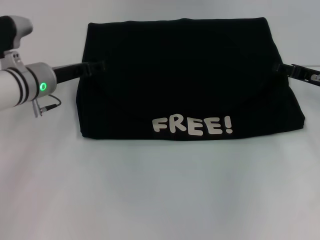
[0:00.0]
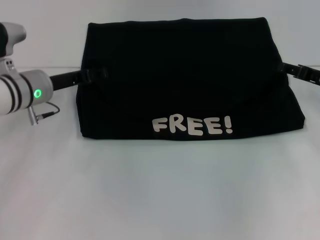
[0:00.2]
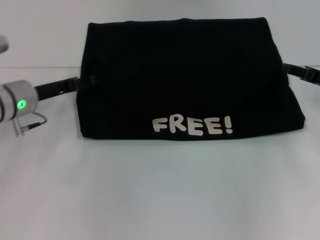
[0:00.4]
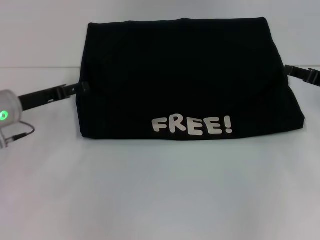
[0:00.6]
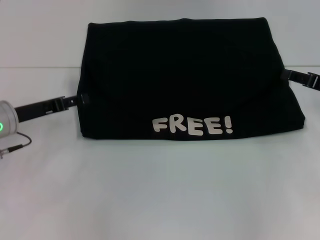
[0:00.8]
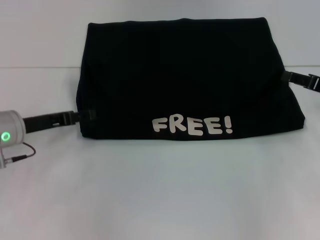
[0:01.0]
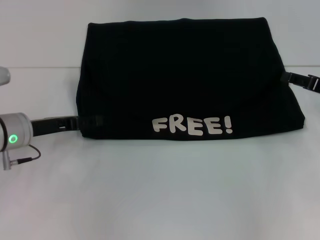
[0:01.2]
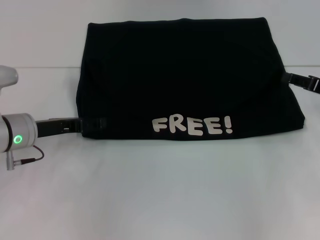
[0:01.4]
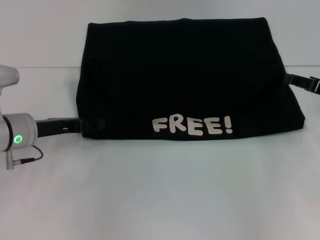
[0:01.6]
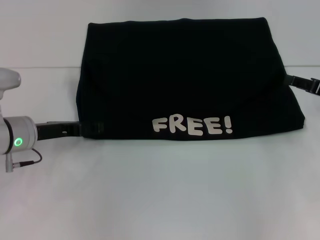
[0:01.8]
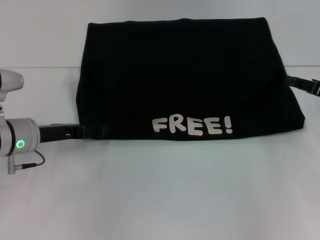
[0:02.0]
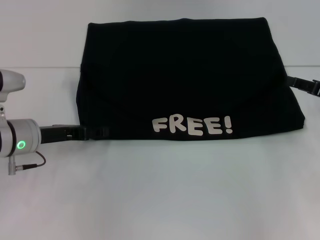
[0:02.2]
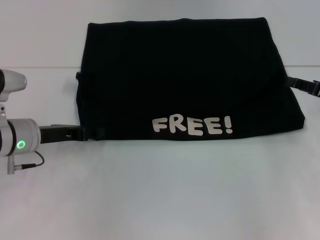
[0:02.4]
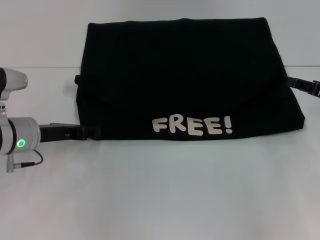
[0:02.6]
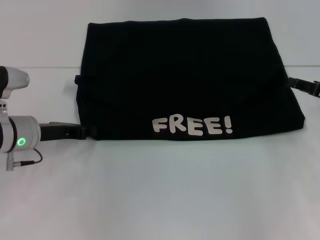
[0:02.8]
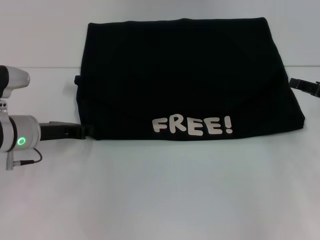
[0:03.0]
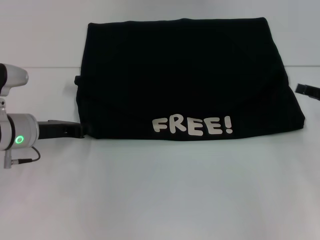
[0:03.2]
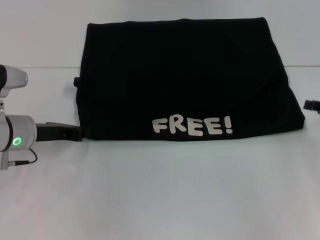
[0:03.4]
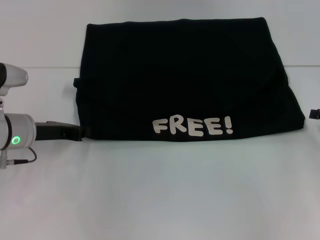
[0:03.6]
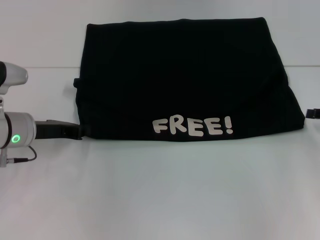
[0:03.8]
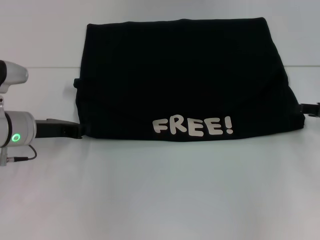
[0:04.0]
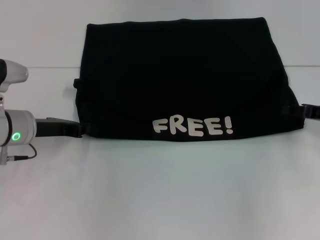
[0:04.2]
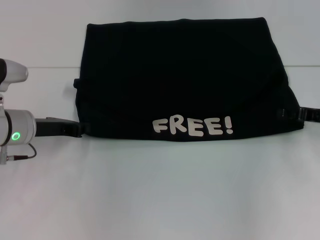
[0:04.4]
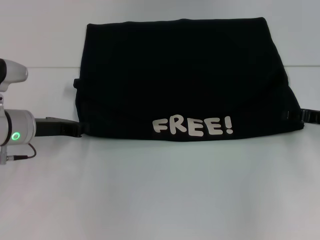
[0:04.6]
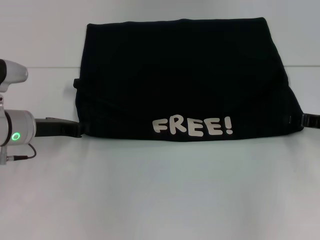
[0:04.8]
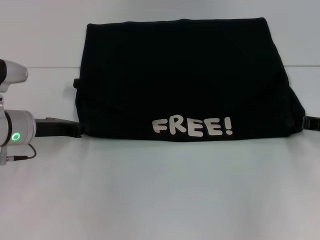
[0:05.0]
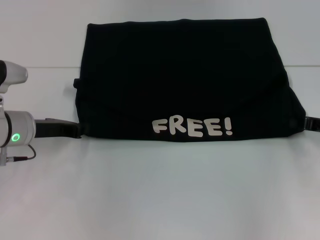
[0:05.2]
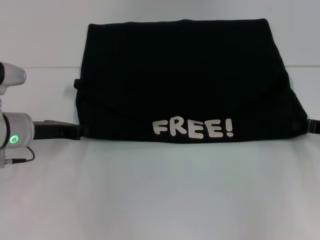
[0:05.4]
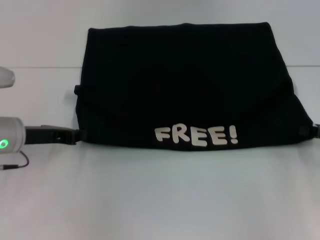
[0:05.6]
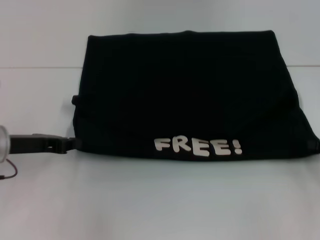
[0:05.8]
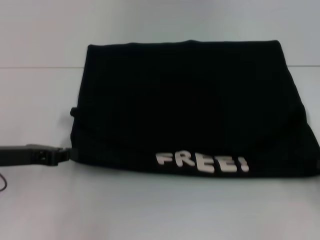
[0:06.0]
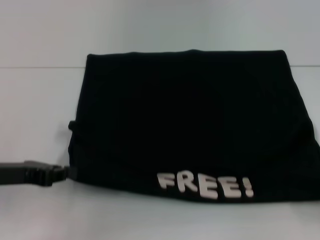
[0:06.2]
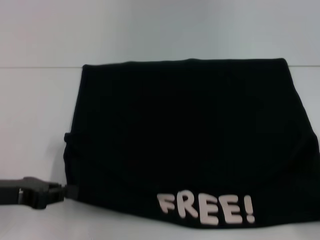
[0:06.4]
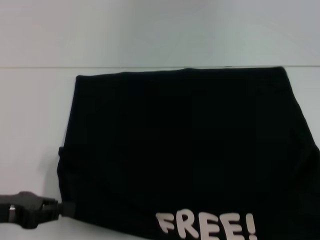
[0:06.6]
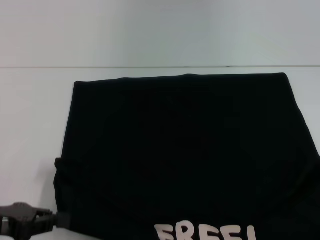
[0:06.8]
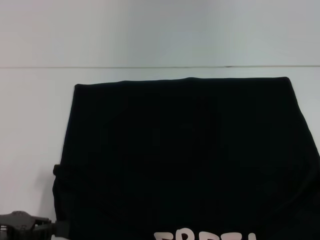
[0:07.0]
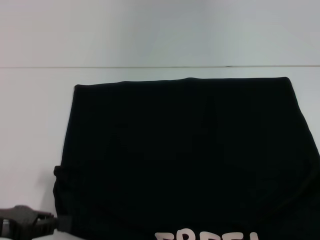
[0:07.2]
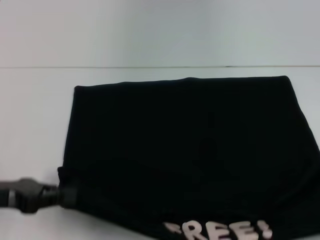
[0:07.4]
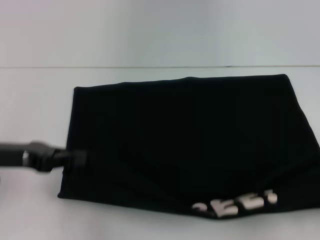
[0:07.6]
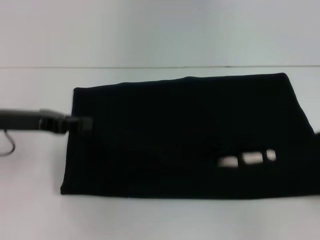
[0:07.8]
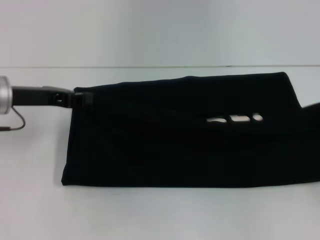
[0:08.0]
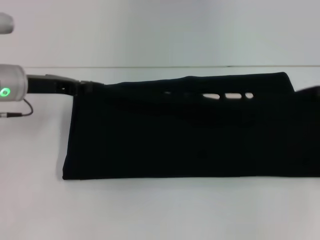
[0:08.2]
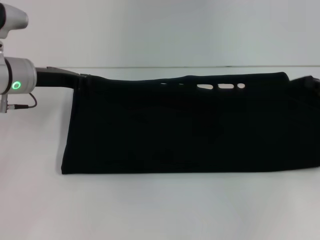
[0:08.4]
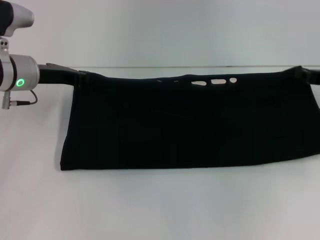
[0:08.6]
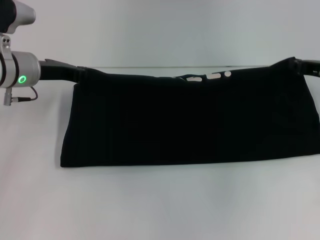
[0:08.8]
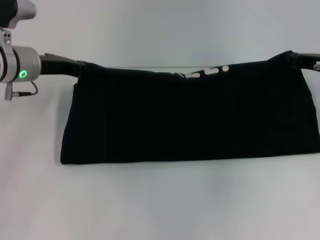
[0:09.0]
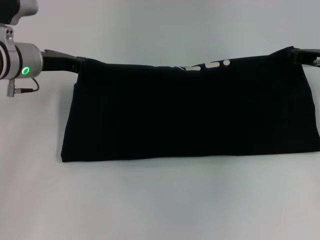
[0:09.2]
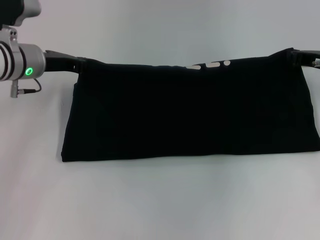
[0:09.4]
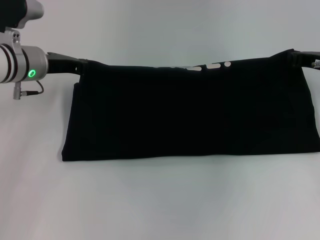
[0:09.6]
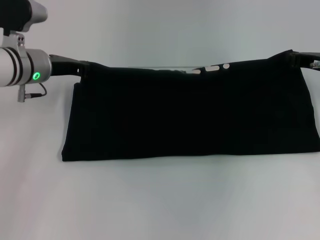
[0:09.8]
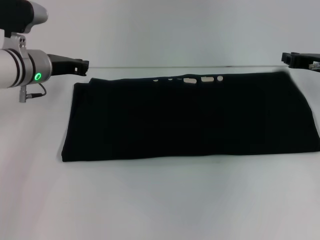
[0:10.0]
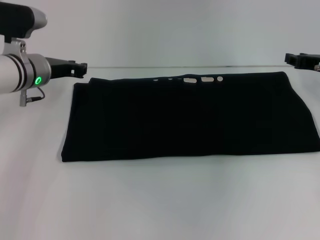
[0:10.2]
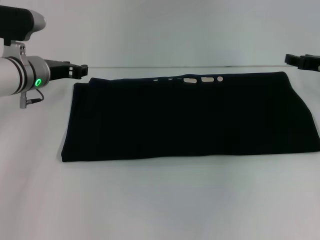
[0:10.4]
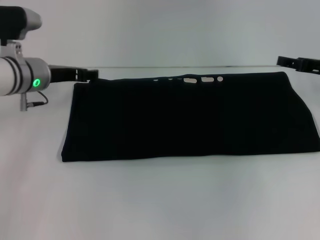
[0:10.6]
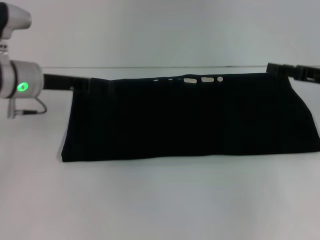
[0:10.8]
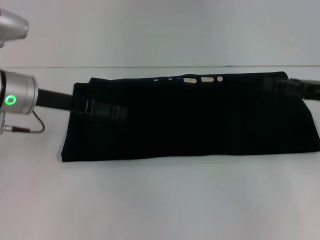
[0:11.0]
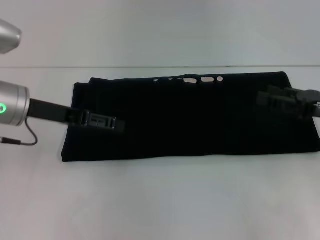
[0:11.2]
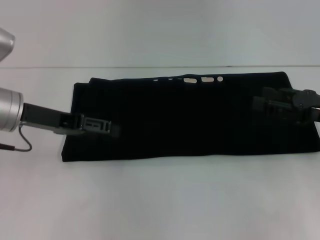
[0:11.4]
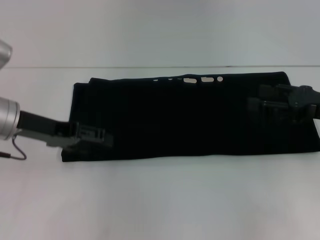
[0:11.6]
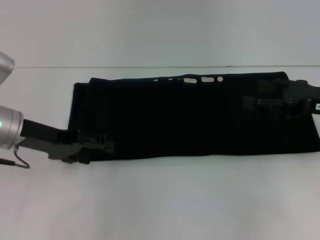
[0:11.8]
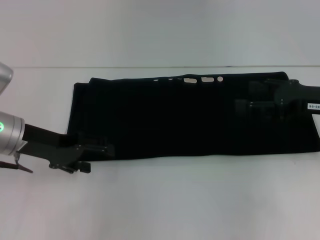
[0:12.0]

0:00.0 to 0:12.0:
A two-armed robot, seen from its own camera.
Step, 0:00.4 to 0:06.6: Pull the clothes with your left hand.
Step, 0:00.4 to 0:06.6: Pull the clothes with your right hand.
Step, 0:06.8 to 0:10.2: Fold the clothes with your right hand.
0:00.0 to 0:01.6: The right gripper changes place by about 5 cm. Meanwhile the left gripper goes some 5 cm backward.
0:01.6 to 0:03.0: The left gripper closes.
0:03.0 to 0:04.4: The grippers make only small movements.
0:04.4 to 0:06.0: The right gripper goes some 15 cm backward and to the right, and closes up. Meanwhile the left gripper moves backward, some 5 cm.
0:06.0 to 0:07.6: The left gripper goes backward and returns, roughly 10 cm each way. The right gripper goes about 5 cm backward.
0:07.6 to 0:09.0: The right gripper goes some 25 cm forward and to the left. The left gripper moves forward, approximately 15 cm.
0:09.0 to 0:10.4: The right gripper opens.
0:10.4 to 0:12.0: The two grippers go some 10 cm backward. The left gripper opens. Meanwhile the right gripper opens its fingers.

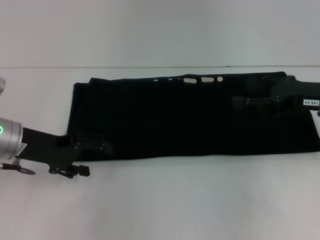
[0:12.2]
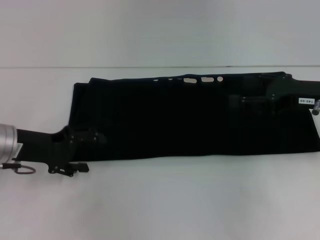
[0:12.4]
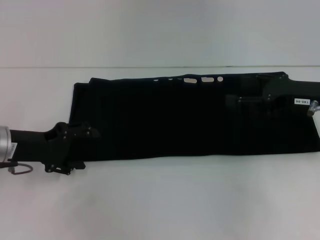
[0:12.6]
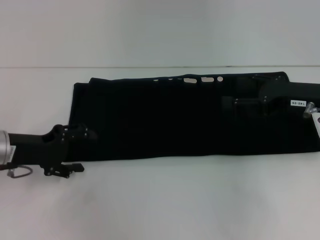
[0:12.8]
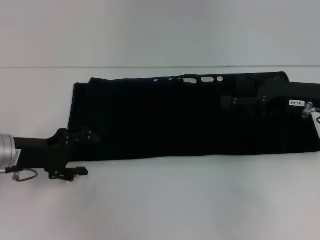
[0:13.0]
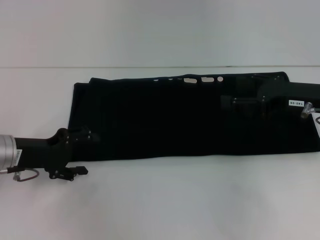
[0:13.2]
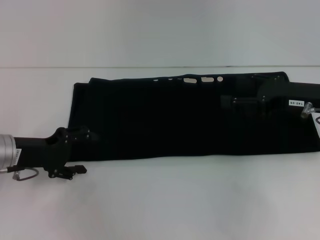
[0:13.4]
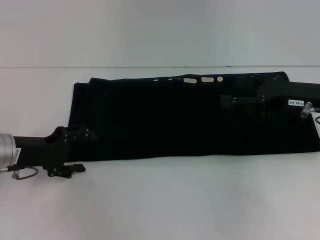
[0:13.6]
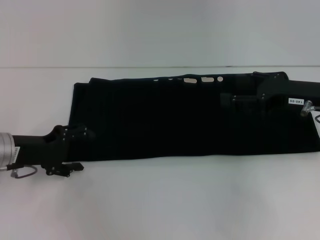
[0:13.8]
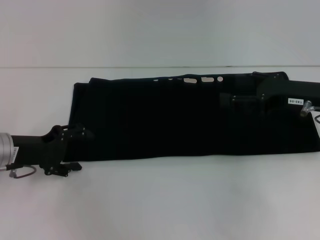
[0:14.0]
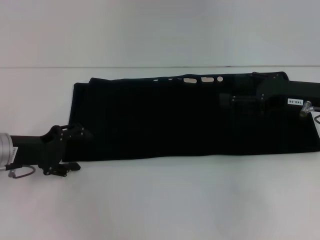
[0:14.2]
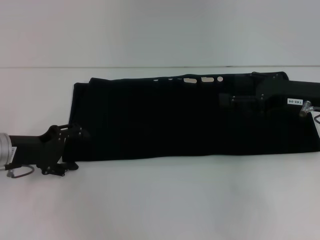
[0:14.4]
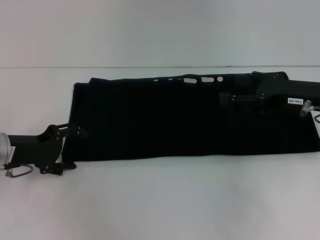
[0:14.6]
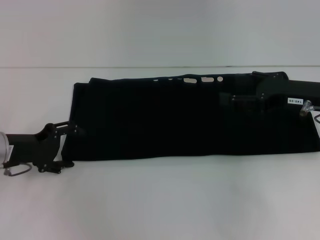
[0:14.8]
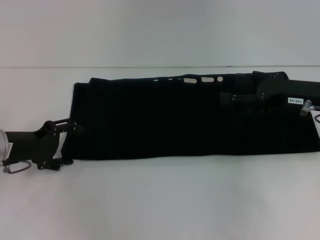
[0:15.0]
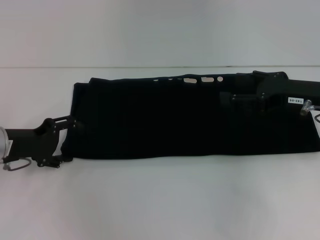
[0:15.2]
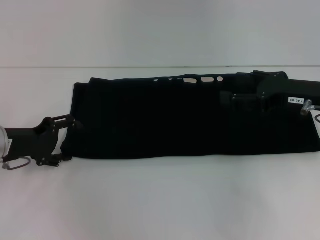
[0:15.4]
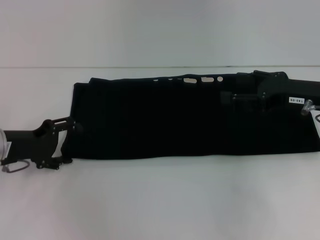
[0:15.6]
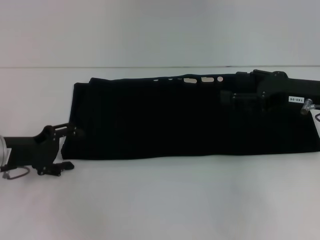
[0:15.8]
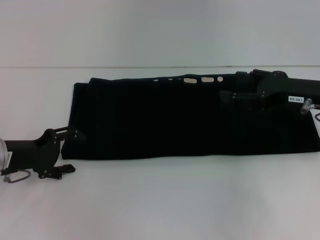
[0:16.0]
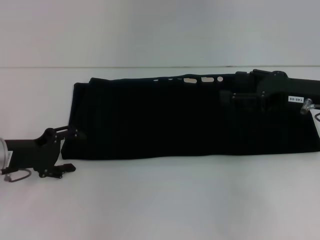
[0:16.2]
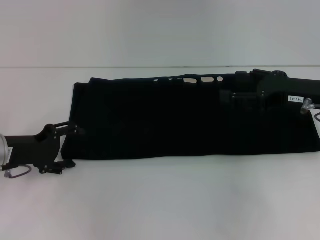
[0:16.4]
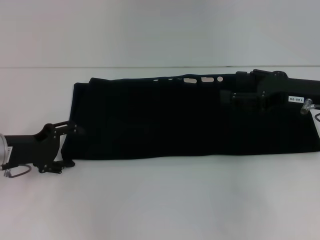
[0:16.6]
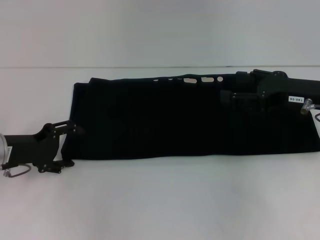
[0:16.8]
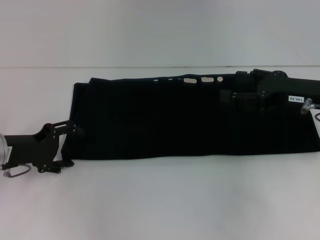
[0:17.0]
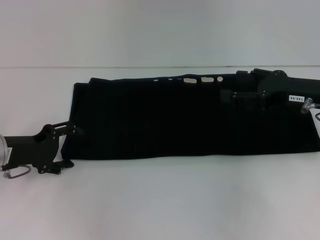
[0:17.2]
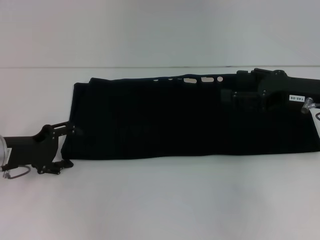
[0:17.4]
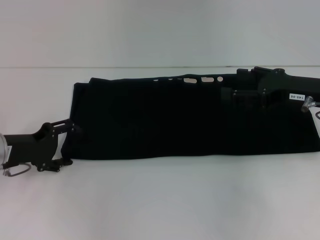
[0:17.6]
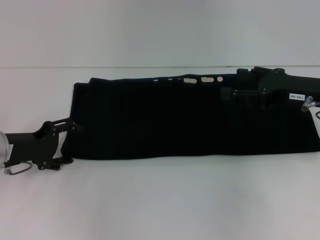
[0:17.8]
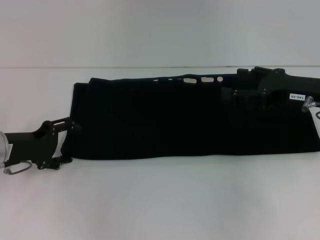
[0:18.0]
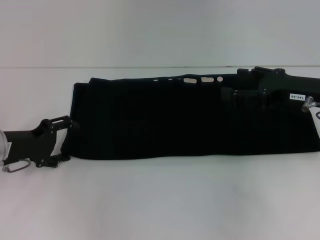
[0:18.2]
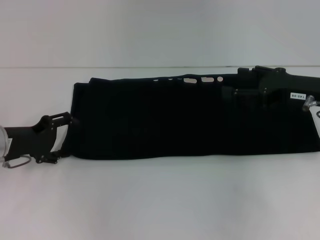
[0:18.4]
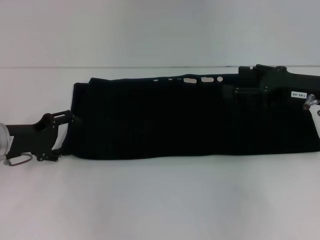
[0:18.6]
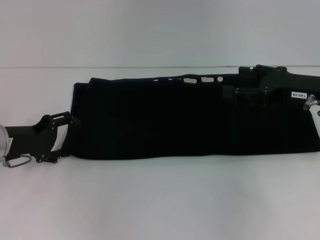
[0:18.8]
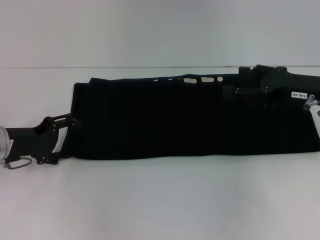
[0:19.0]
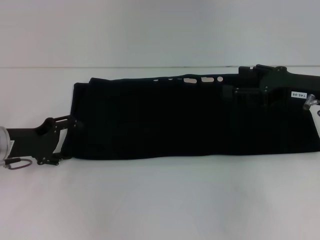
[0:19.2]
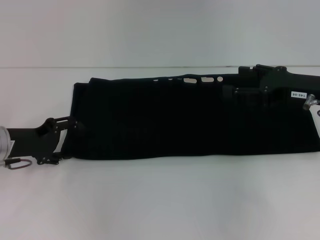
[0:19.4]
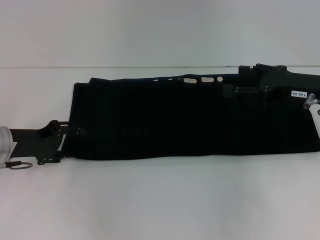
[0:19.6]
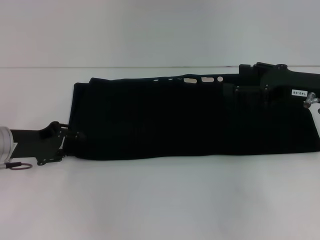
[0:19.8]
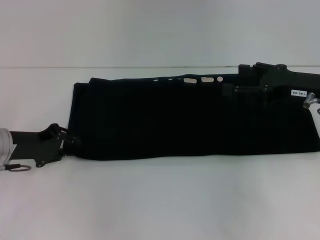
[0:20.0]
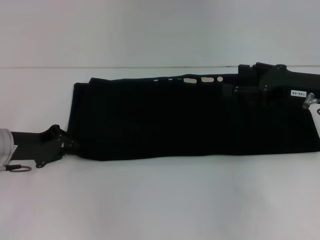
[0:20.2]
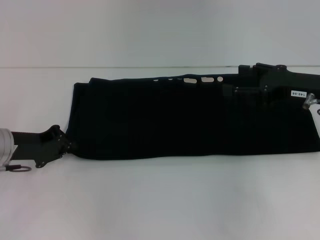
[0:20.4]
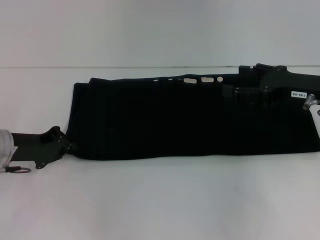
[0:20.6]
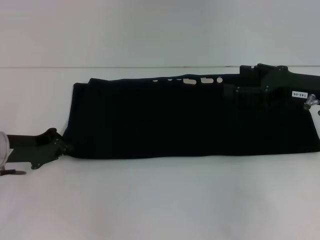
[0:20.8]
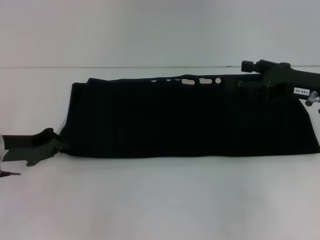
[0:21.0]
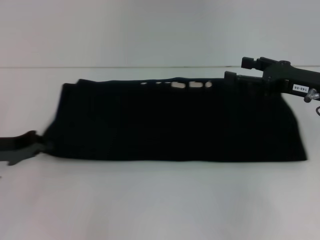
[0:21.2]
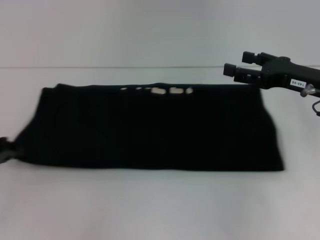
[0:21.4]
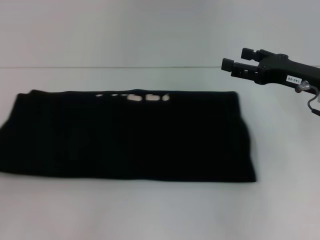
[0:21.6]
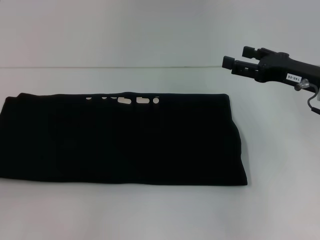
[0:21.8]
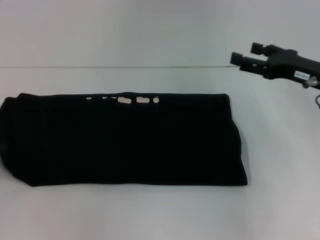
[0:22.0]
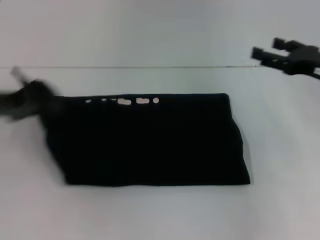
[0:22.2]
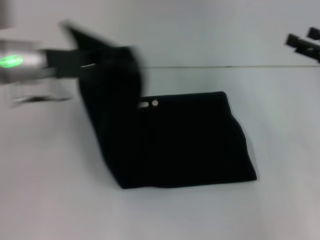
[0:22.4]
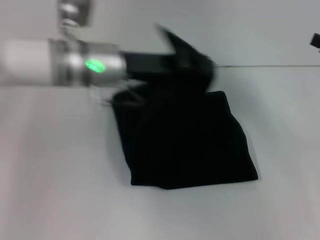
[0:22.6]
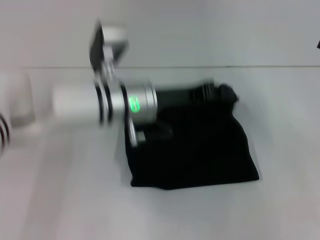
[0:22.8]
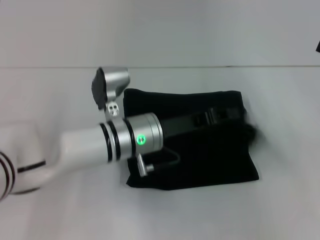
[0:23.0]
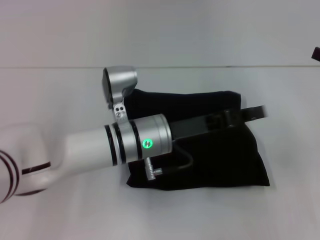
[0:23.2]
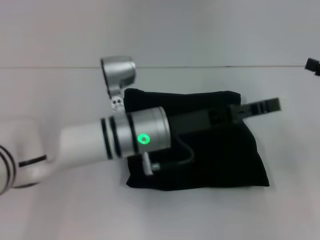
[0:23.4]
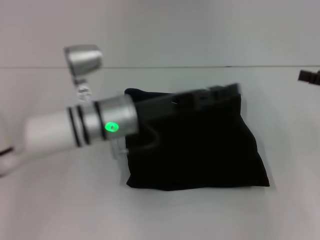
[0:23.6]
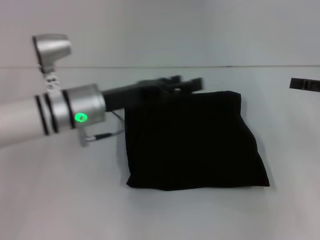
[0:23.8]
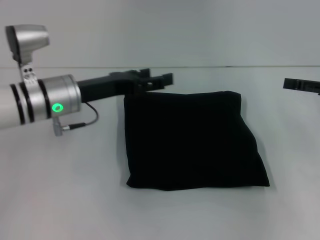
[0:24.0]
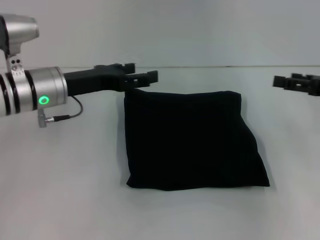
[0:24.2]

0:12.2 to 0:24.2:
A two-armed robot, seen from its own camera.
Step, 0:12.2 to 0:23.2: Fold the clothes with your left hand.
0:13.8 to 0:16.6: The grippers make only small movements.
0:16.6 to 0:18.2: The two grippers keep their place.
0:18.2 to 0:19.8: The grippers stay close to where they were, moving slightly.
0:19.8 to 0:21.2: The left gripper closes.
0:21.2 to 0:22.6: The right gripper travels to the right by roughly 10 cm. Meanwhile the left gripper is displaced to the right and upward by some 25 cm.
0:22.6 to 0:24.2: The left gripper travels to the left by some 10 cm, and opens its fingers.
